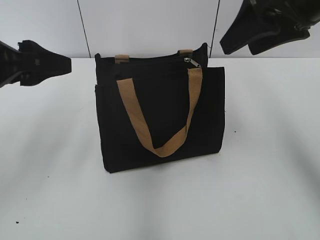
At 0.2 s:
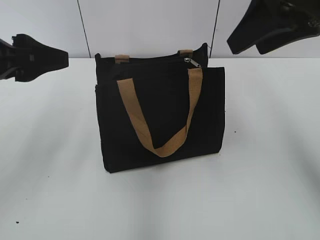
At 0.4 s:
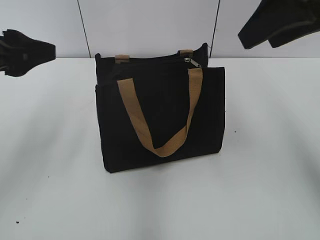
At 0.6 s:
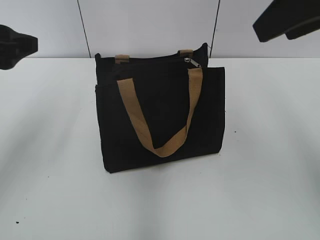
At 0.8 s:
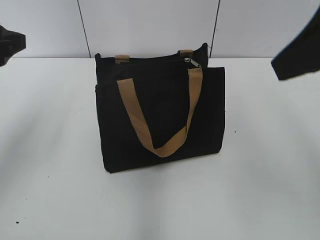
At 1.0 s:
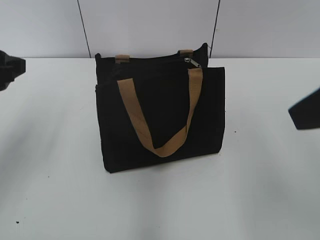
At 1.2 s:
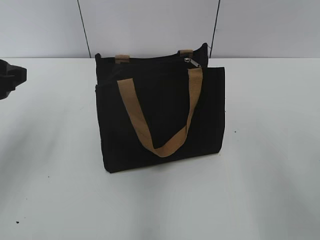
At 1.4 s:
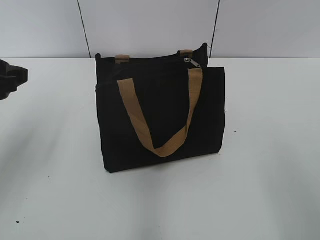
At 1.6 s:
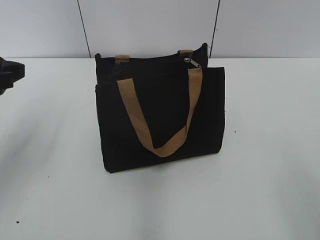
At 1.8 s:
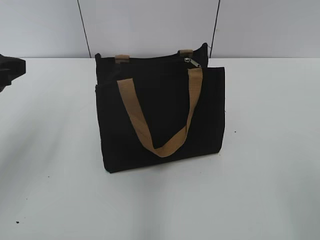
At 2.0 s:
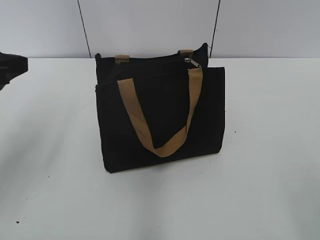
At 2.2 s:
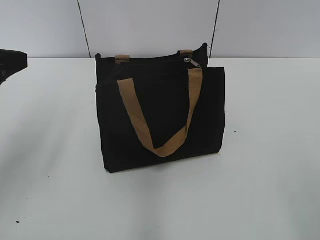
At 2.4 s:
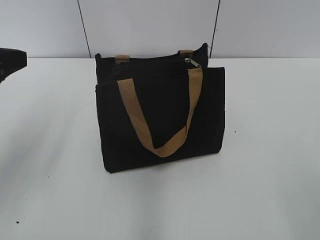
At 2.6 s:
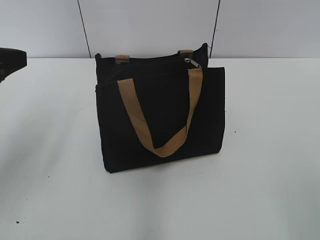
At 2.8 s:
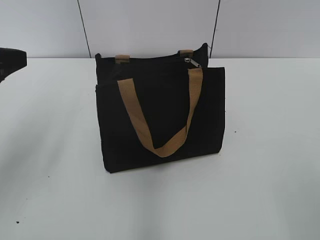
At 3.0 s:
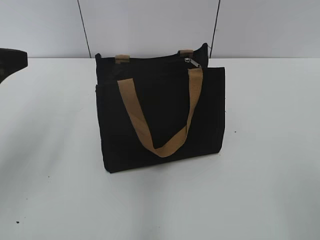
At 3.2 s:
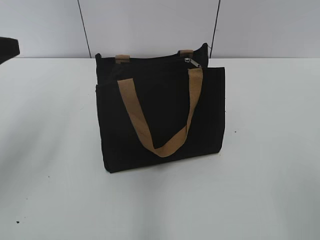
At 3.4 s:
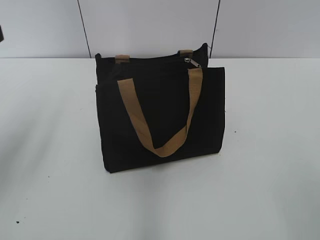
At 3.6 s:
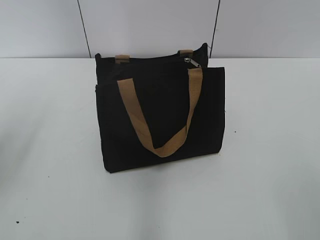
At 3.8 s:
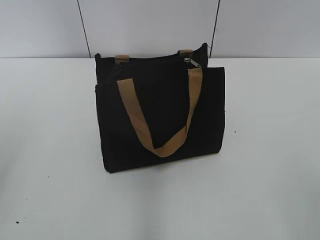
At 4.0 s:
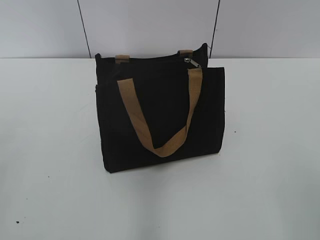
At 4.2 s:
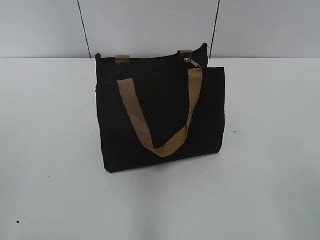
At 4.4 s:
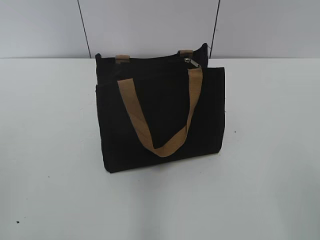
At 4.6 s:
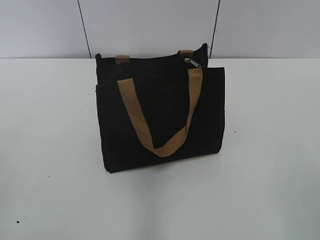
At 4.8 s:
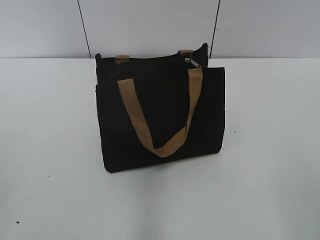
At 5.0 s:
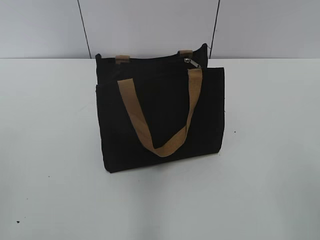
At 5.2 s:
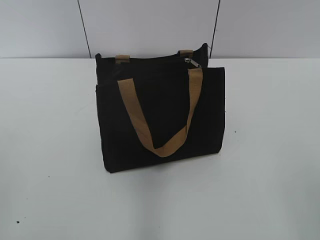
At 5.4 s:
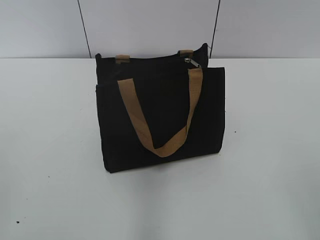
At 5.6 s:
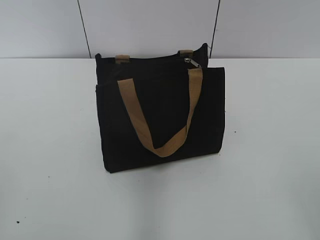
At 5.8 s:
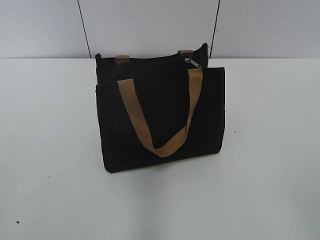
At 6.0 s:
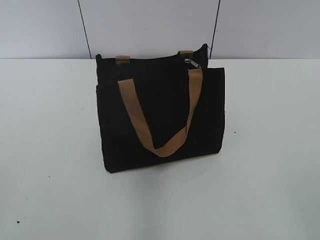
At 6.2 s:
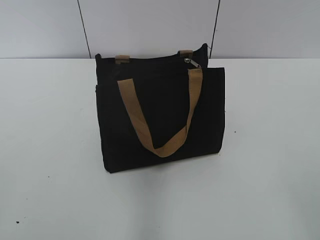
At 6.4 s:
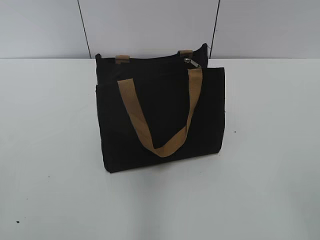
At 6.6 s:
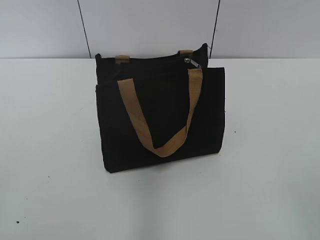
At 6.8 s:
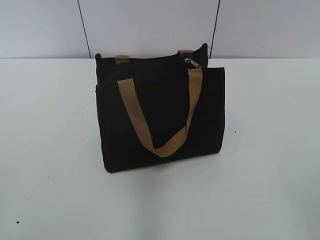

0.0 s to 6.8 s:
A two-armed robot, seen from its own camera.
0.0 to 1.4 s: The right gripper goes about 25 cm backward.
2.8 to 4.0 s: The left gripper goes approximately 10 cm backward and to the left.
